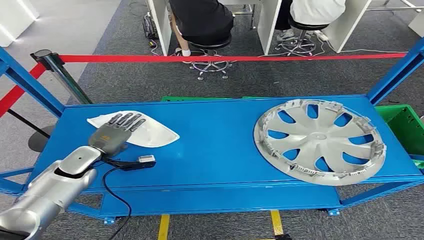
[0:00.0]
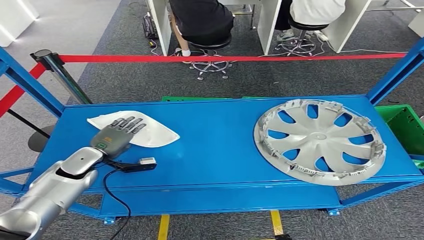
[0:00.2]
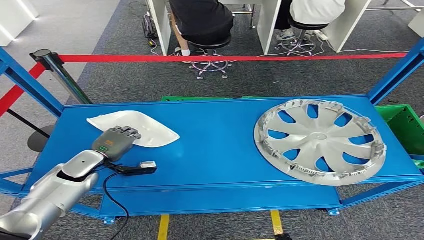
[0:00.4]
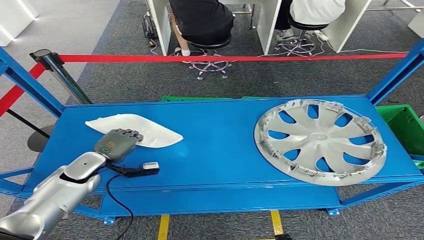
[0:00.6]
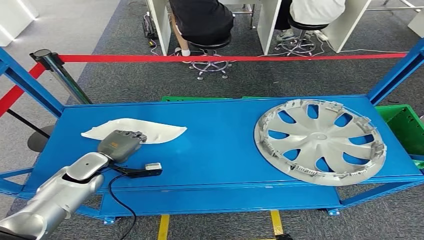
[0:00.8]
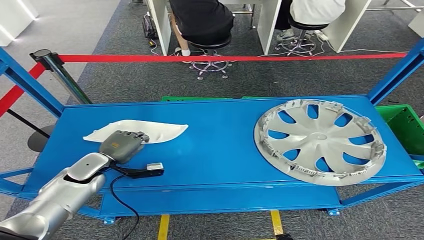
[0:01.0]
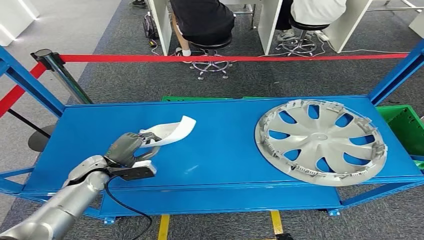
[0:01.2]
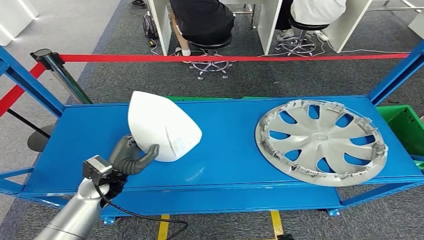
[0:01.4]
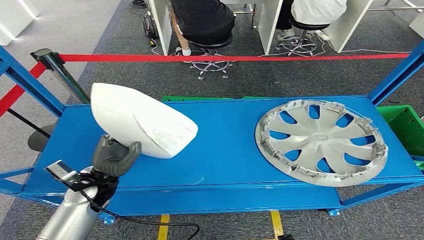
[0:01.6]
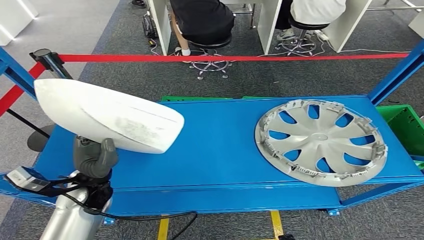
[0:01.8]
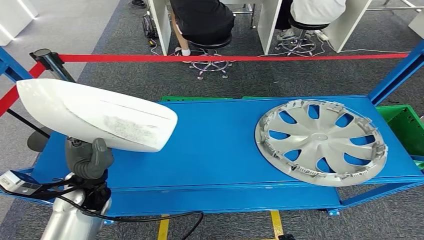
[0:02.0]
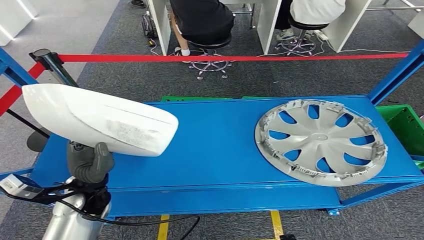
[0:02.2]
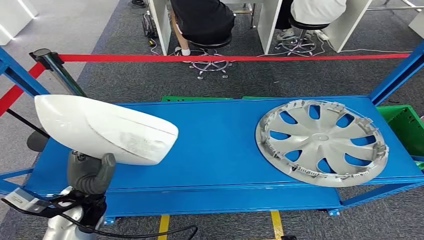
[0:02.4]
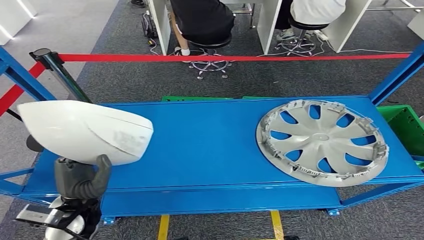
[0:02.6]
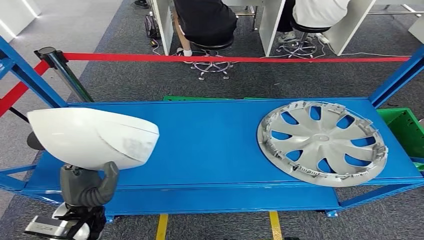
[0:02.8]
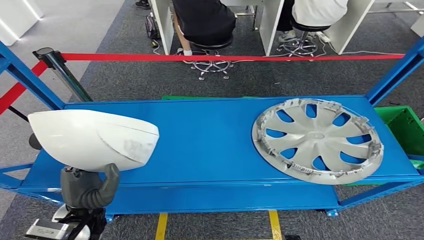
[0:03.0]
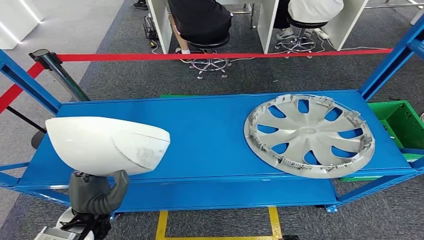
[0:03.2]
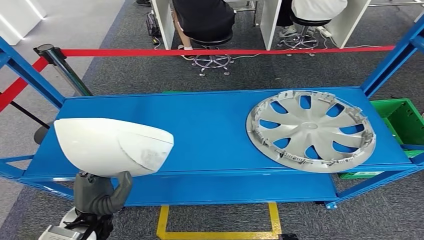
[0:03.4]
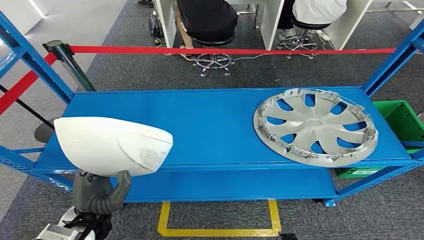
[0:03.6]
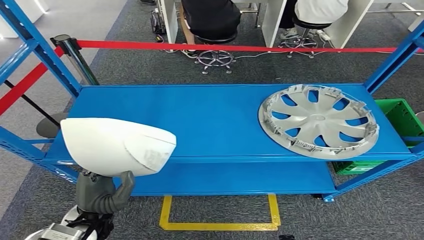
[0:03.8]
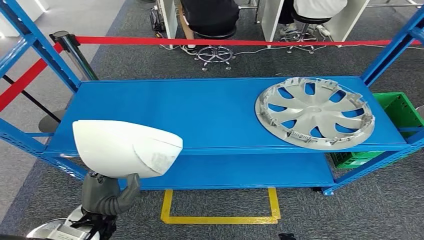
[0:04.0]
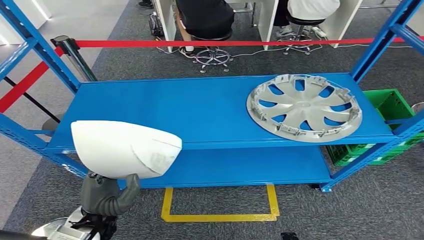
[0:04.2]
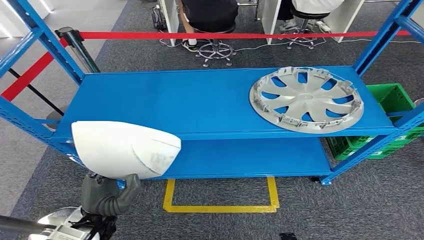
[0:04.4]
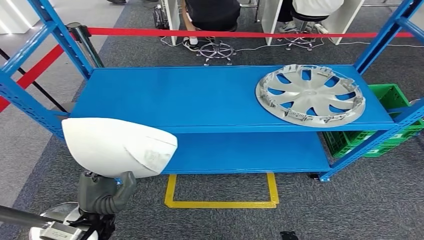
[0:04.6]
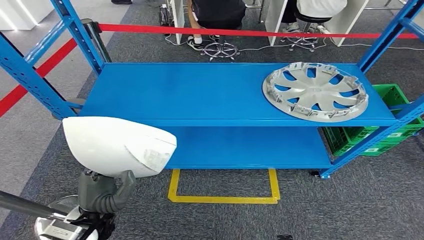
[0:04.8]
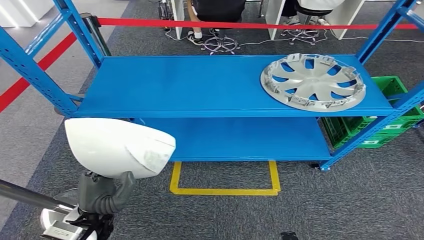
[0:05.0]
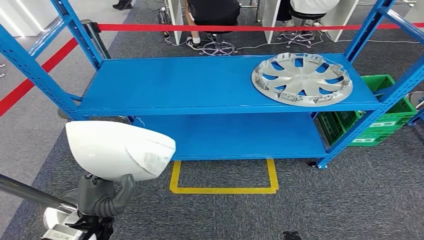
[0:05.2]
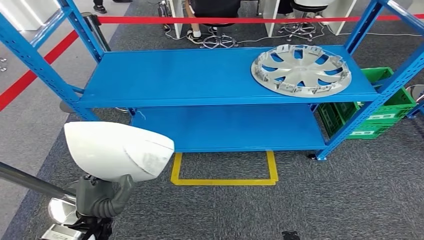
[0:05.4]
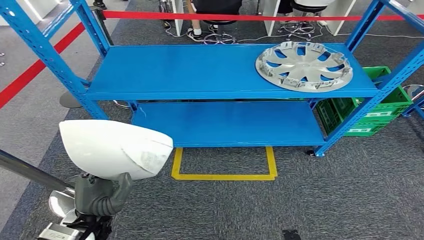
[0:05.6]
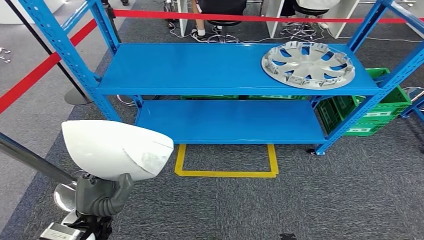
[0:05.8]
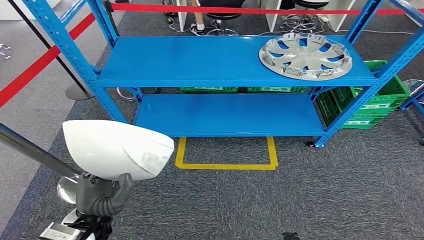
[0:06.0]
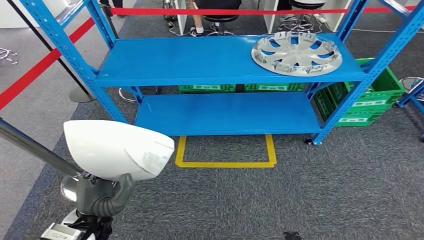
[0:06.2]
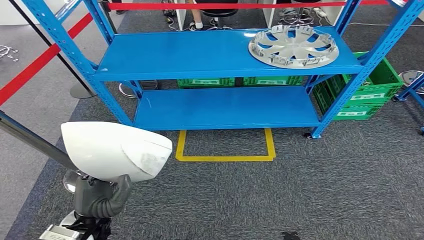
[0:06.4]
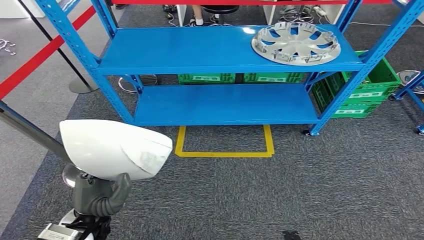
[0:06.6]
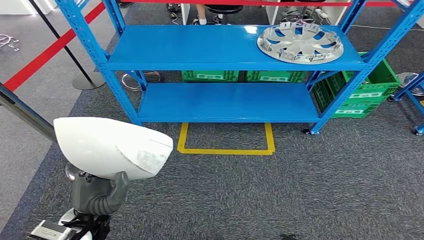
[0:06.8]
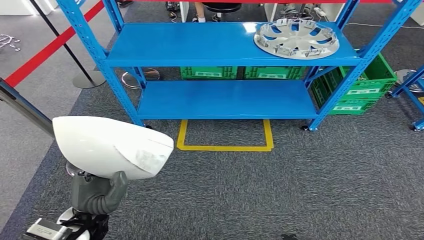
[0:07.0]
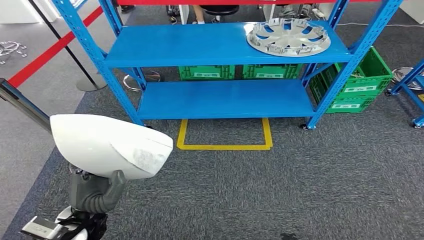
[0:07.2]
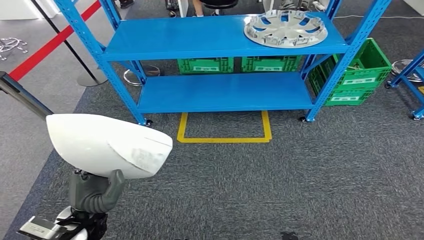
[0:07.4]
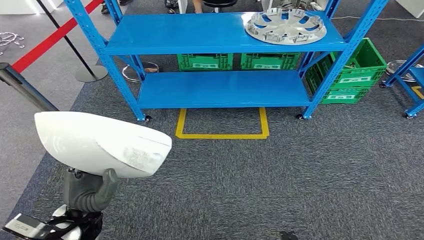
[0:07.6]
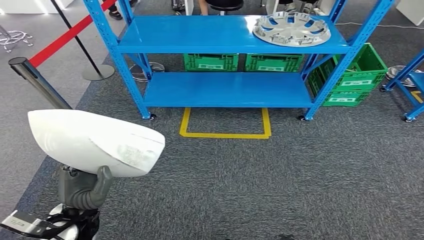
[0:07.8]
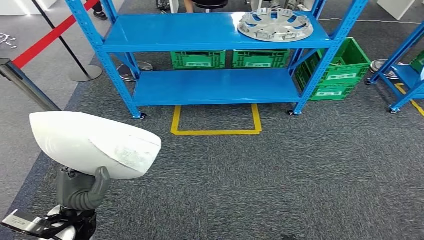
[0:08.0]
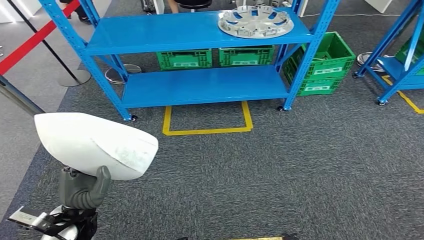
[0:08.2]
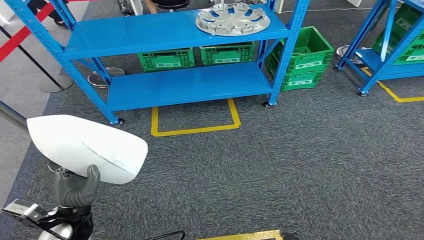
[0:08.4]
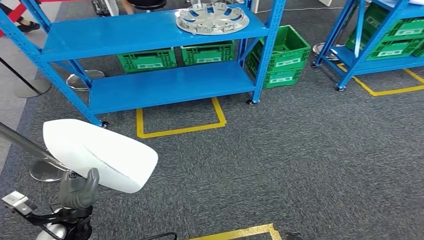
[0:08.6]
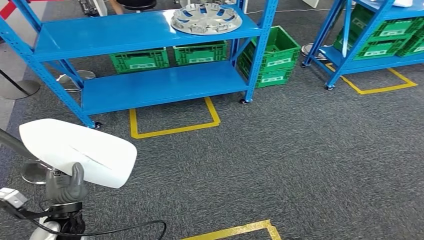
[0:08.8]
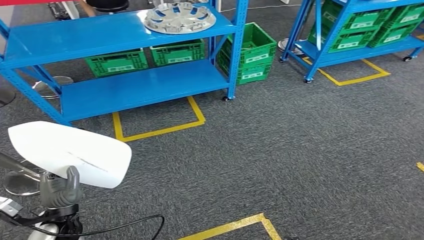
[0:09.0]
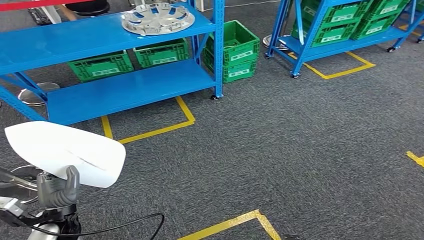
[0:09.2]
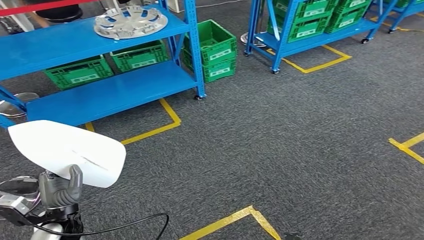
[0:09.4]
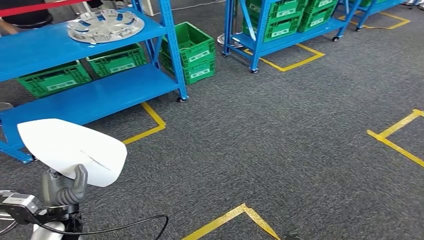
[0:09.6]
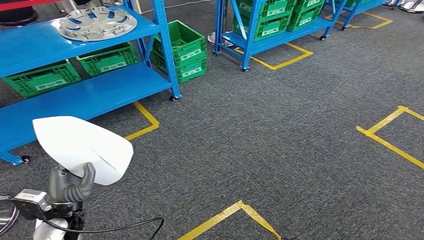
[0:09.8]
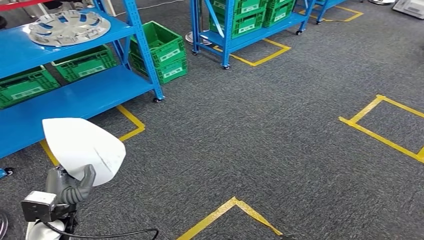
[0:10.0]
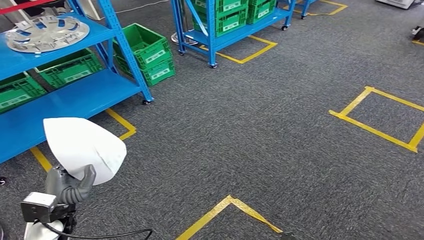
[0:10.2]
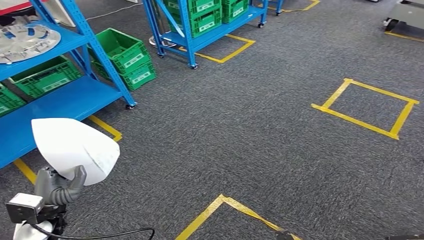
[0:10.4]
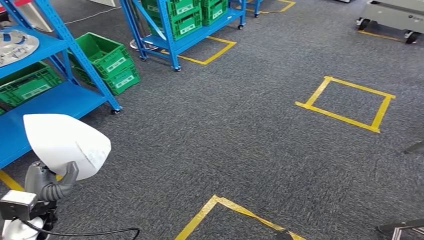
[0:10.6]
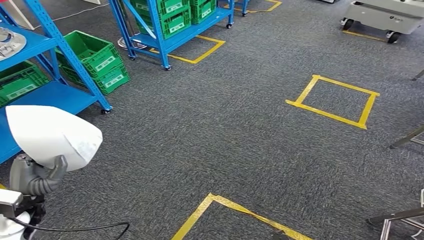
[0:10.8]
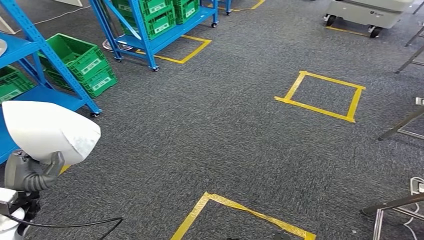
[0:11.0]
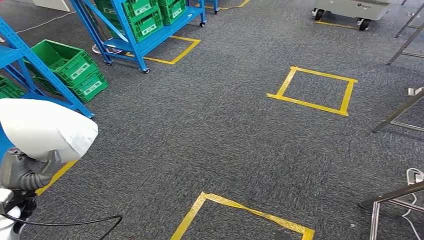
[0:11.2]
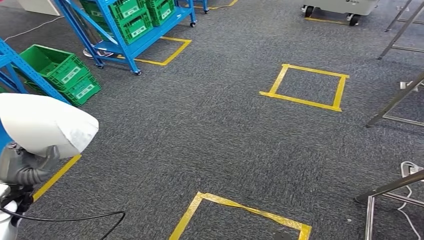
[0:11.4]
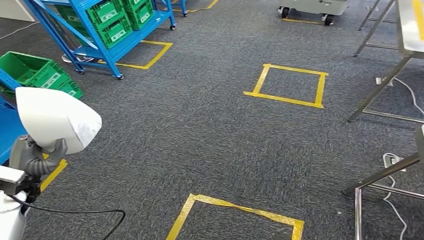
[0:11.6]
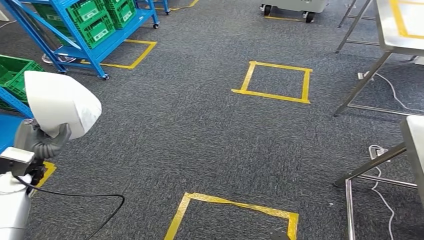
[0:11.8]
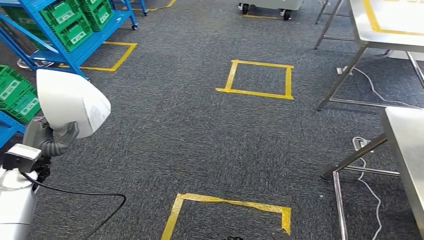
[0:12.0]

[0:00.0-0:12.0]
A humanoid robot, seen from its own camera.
Step, 0:00.0 to 0:02.8: Pick up the small parts from the shelf.

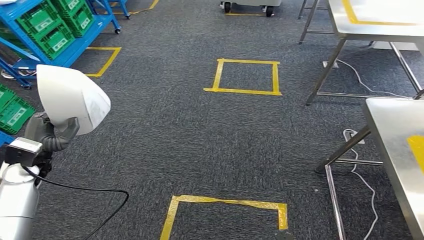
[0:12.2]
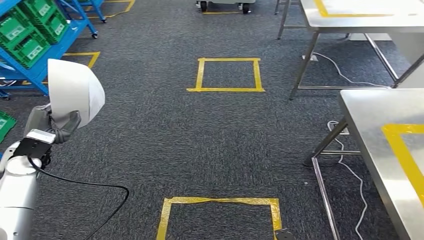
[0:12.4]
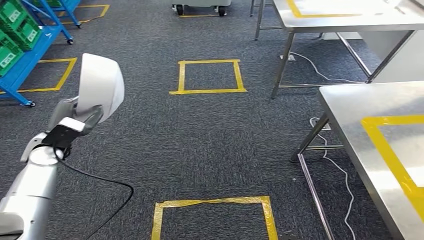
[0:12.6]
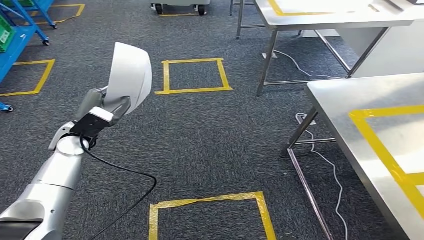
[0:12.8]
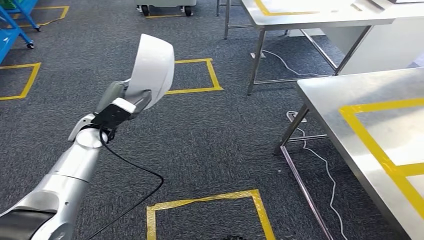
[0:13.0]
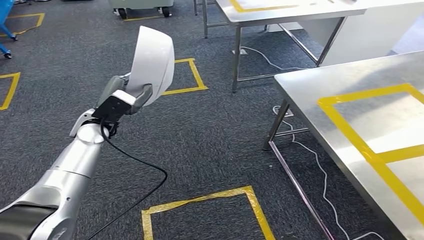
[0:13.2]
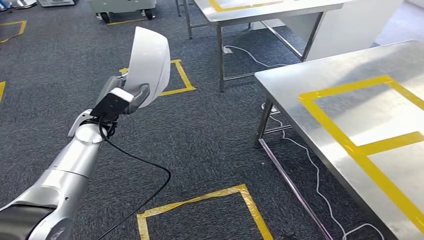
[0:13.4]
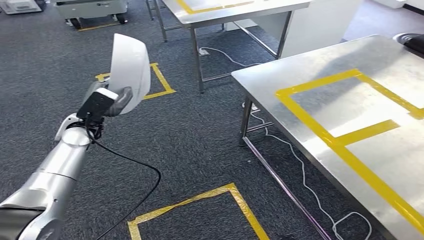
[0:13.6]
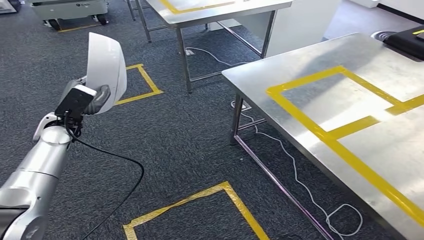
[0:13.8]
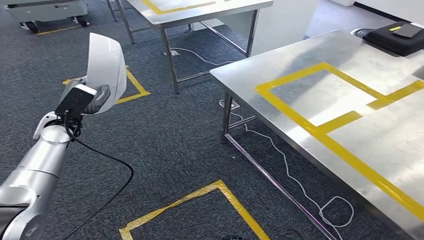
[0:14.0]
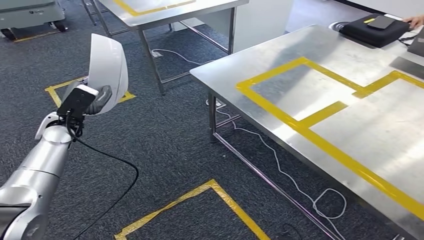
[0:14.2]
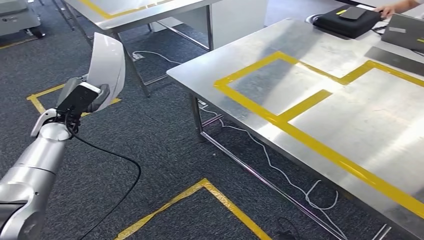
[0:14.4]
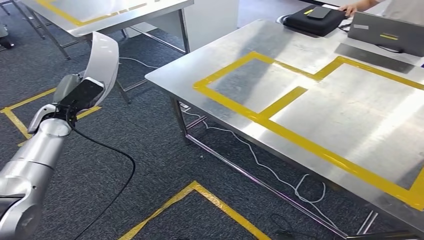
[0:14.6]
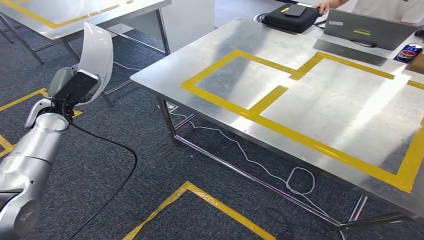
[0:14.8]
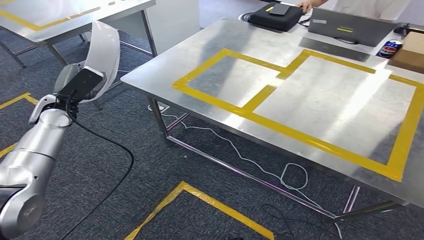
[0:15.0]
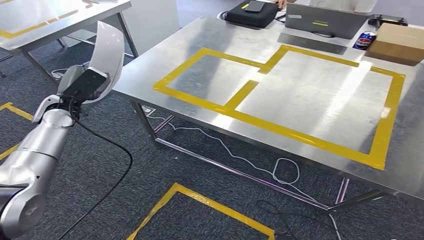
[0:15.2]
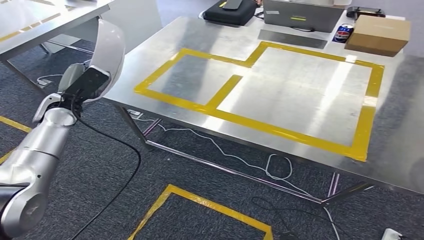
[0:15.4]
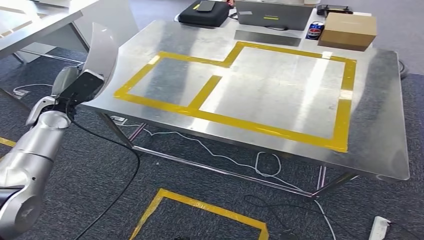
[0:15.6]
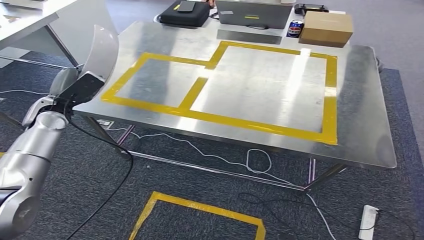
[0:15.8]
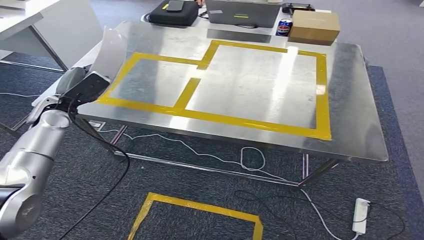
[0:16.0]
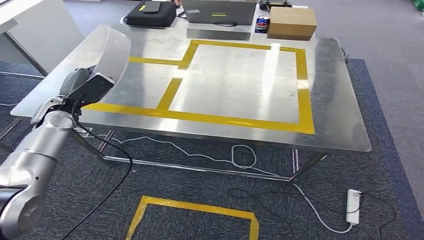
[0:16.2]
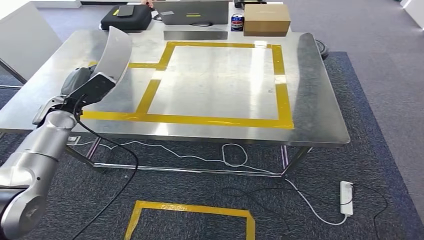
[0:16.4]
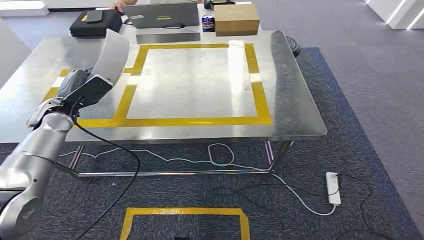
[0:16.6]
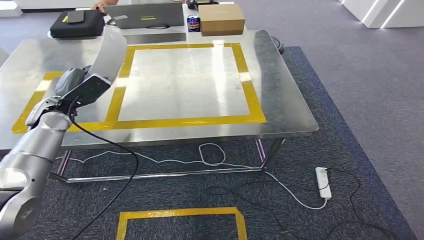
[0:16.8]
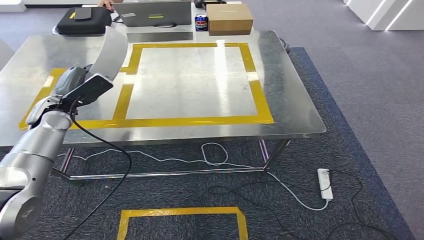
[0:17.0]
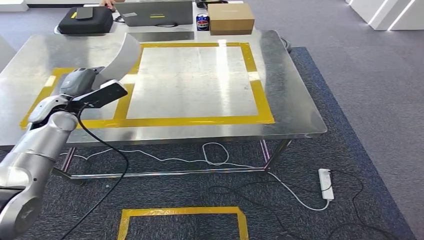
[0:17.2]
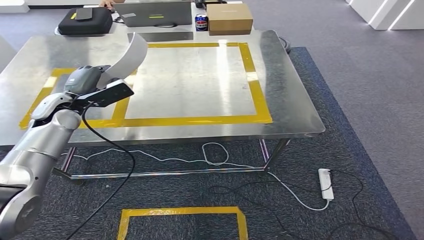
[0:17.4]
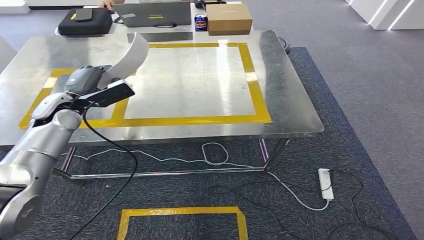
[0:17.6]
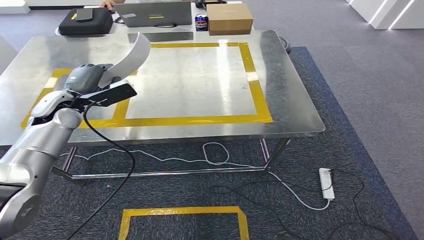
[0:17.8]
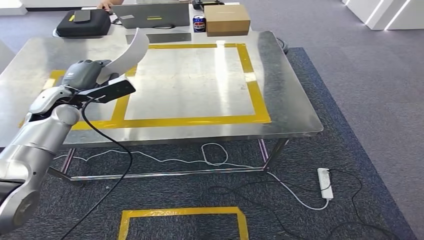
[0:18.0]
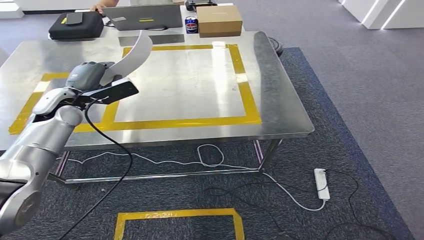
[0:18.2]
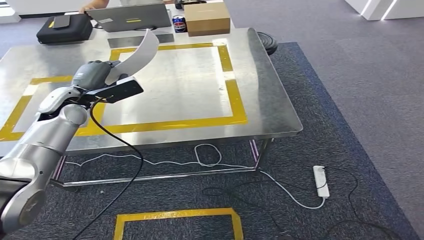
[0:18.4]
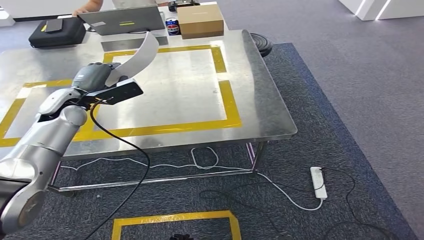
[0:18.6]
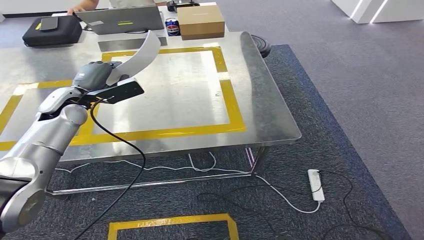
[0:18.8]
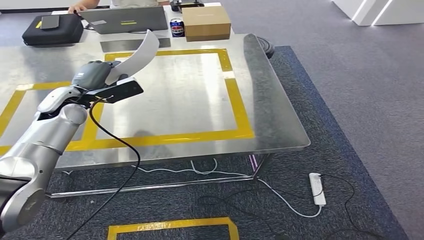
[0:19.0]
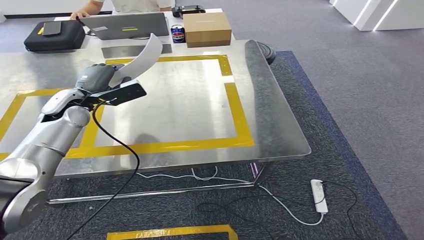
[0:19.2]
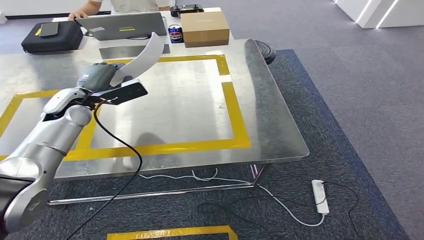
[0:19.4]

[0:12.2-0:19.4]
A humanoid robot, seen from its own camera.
Step, 0:12.2 to 0:15.6: Move the small parts to the workbench.
